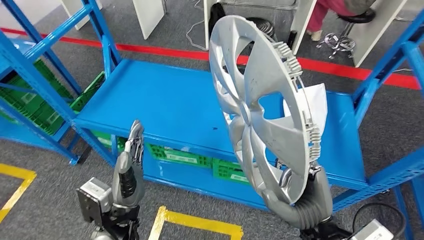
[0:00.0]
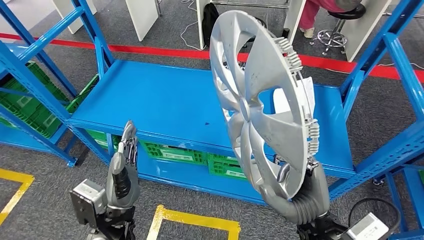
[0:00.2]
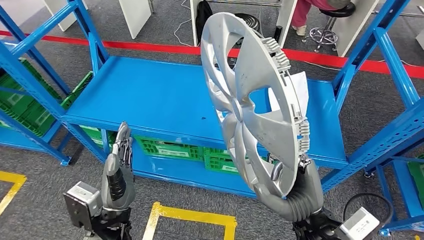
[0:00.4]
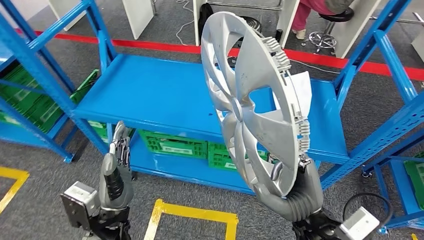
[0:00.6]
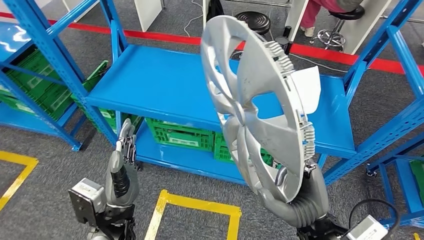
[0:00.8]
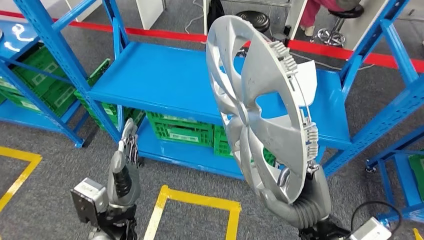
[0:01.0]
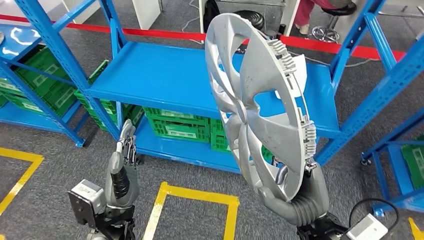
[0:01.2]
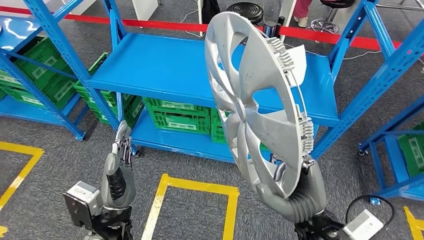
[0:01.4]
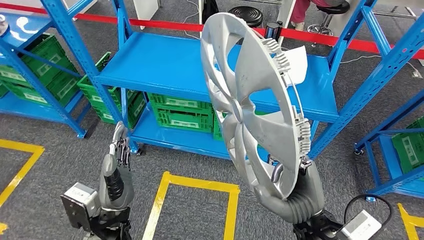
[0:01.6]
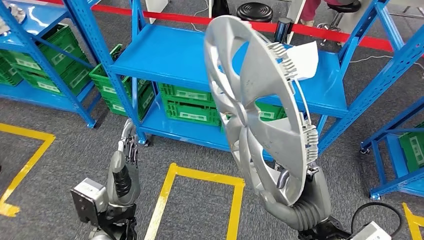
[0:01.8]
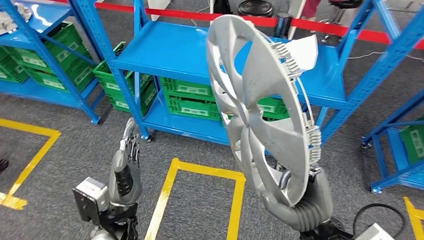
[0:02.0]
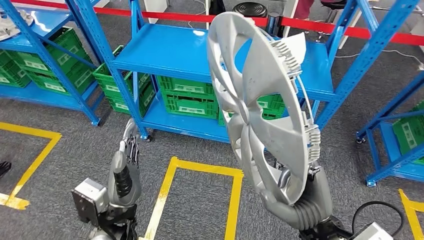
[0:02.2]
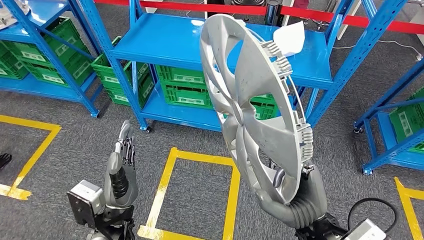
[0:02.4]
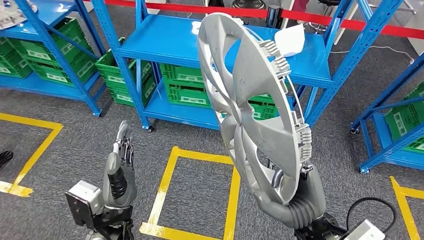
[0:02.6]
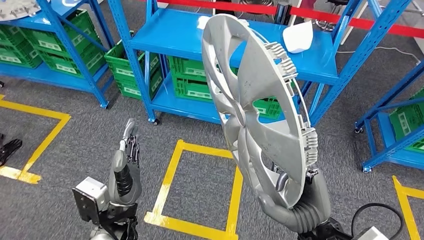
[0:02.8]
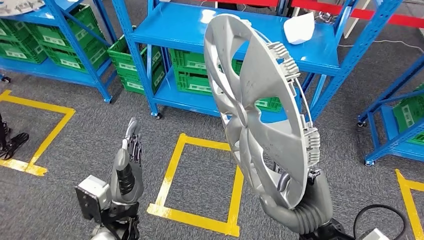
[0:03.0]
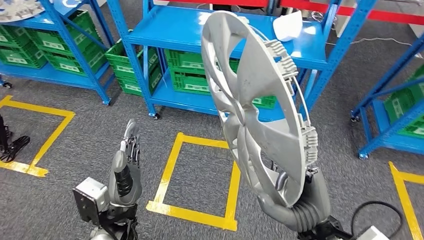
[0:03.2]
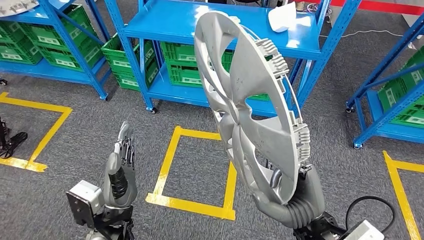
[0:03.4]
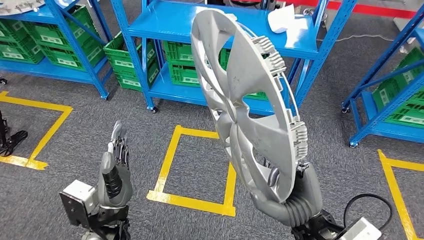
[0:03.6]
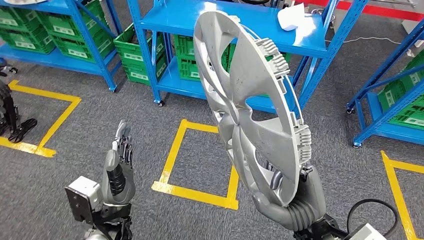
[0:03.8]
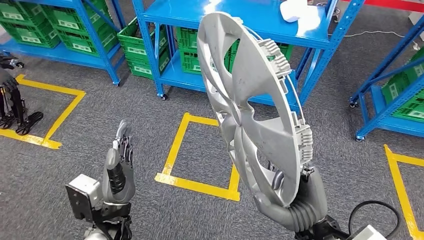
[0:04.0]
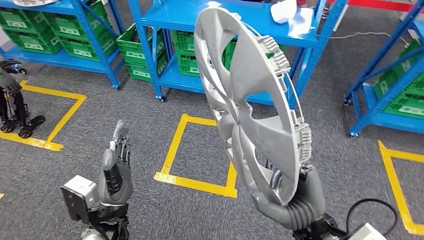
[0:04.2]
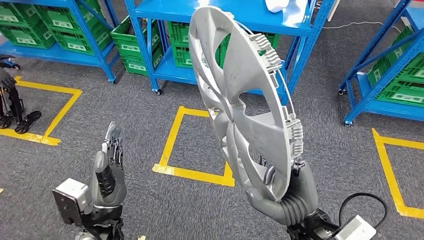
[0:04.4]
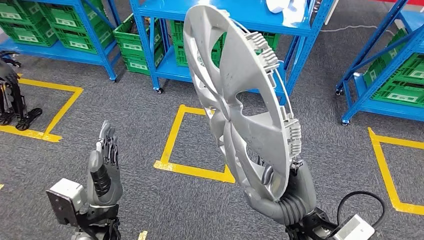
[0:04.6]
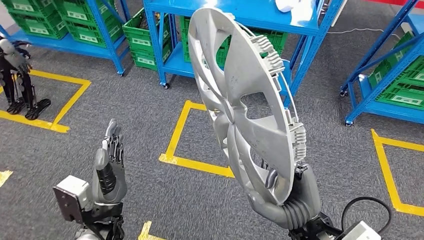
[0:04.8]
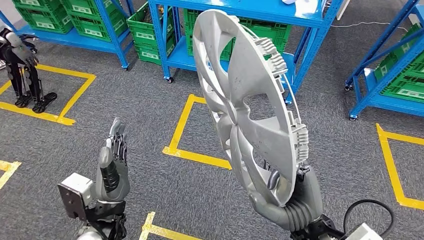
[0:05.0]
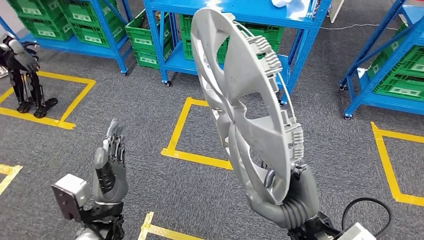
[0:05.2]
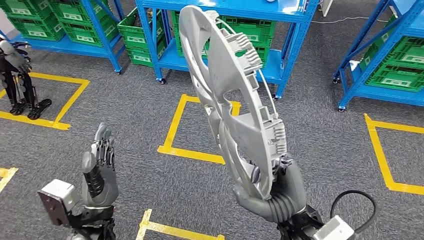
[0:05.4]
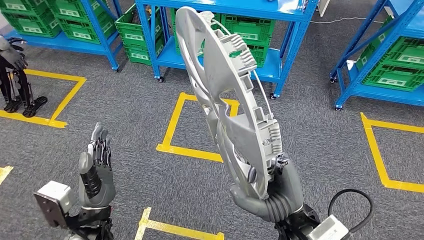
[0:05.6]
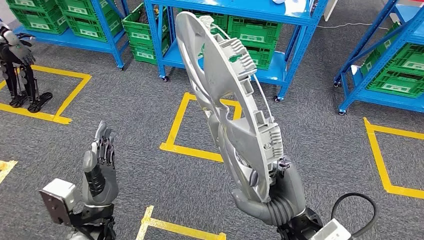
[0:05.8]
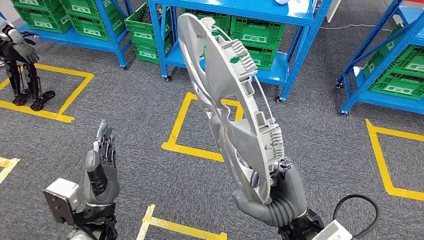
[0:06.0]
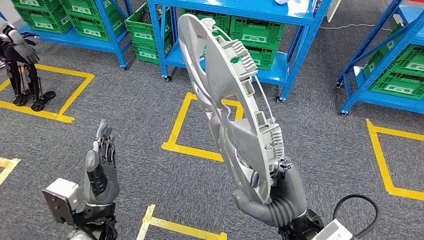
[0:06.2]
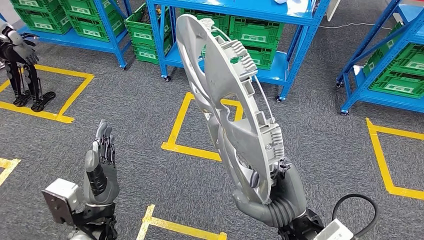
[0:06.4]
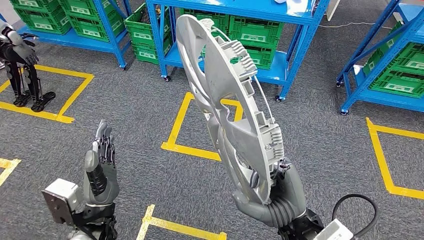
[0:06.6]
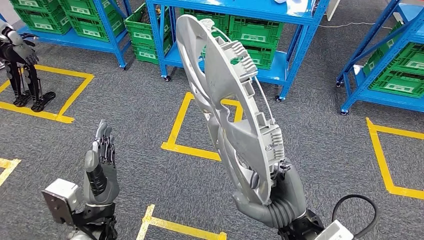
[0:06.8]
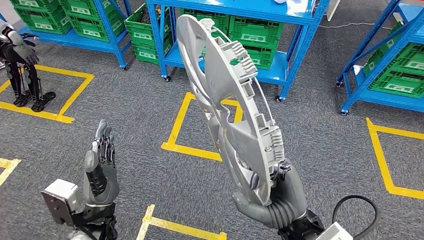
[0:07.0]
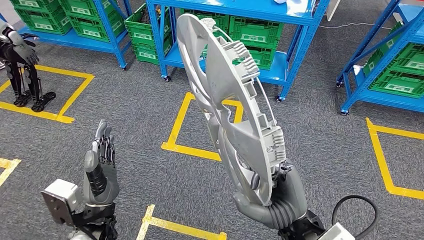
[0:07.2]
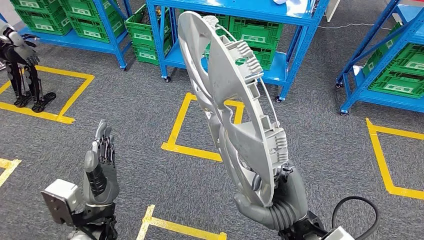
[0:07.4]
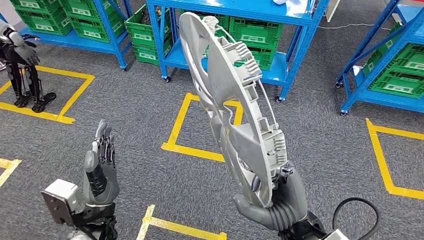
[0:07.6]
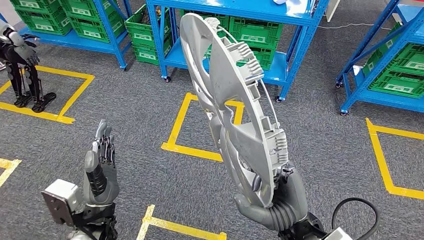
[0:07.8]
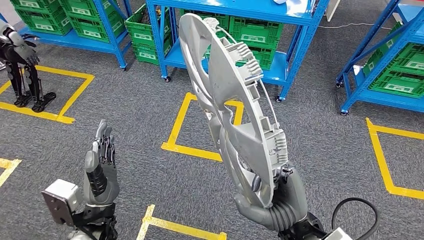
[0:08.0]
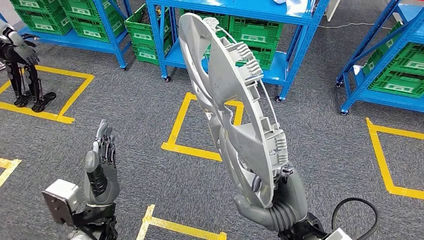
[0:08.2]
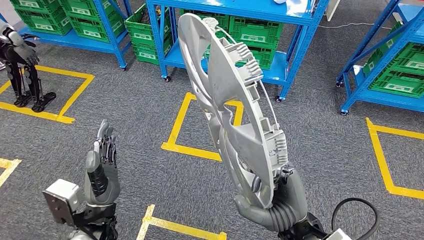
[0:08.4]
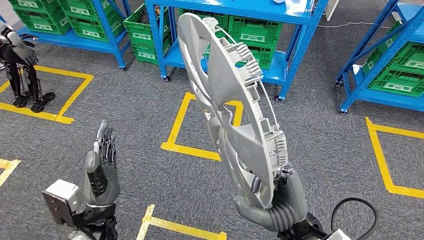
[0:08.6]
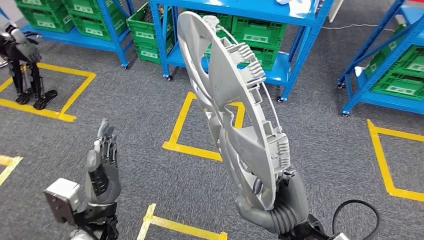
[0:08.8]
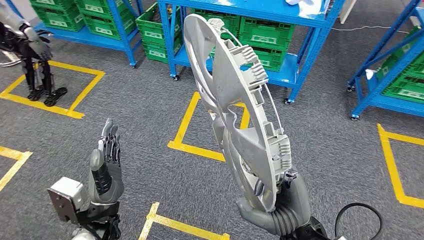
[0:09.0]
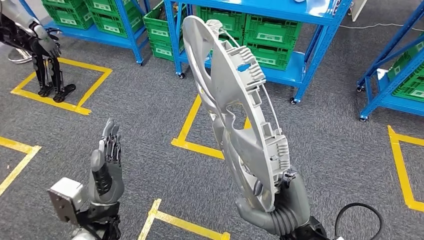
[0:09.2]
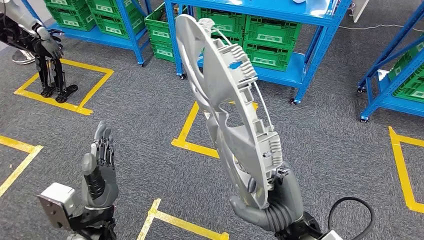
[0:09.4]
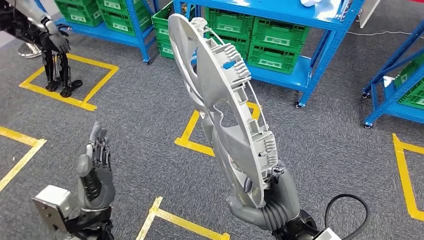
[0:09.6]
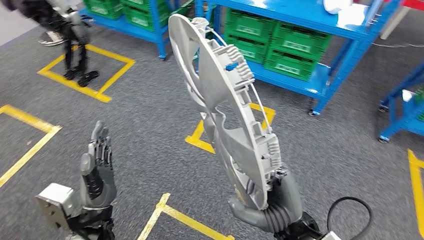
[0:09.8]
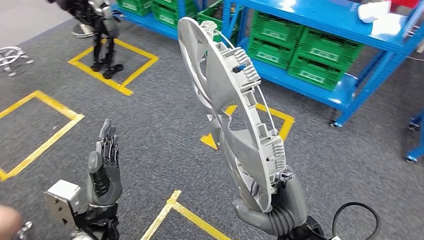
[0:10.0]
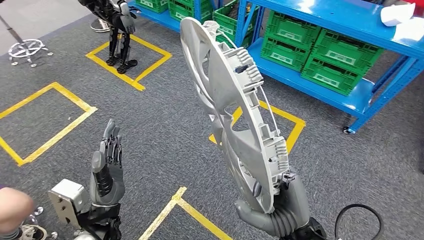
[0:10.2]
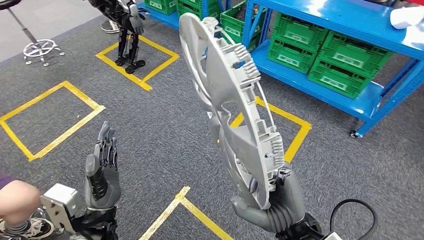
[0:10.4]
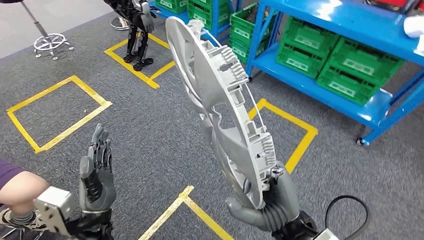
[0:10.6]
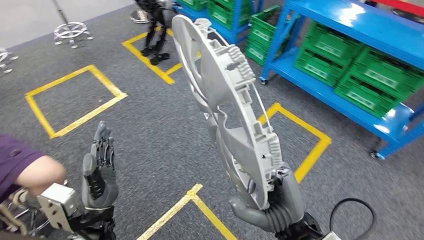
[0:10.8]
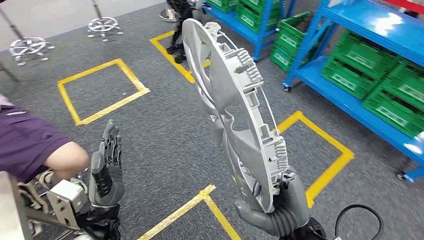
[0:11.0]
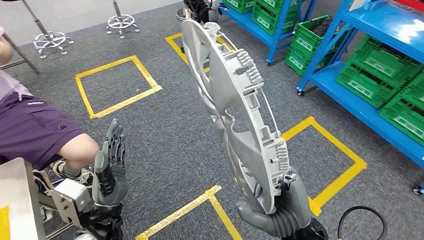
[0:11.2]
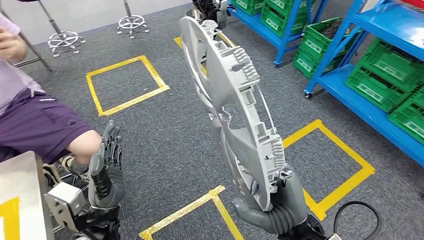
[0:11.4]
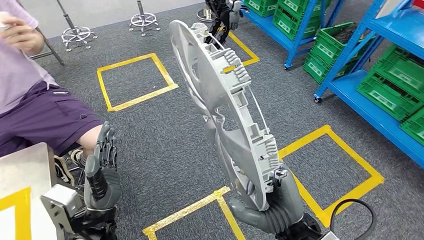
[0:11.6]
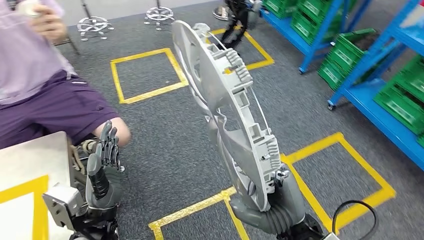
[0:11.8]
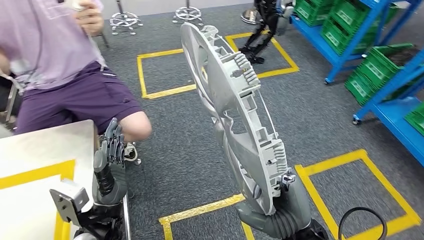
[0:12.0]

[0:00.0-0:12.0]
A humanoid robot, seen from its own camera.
0:06.0 to 0:07.6: Both hands stay about where they are.

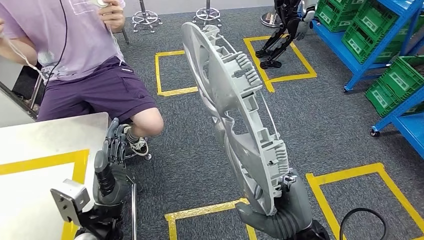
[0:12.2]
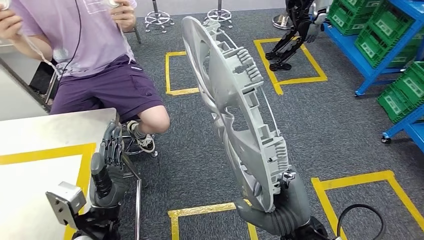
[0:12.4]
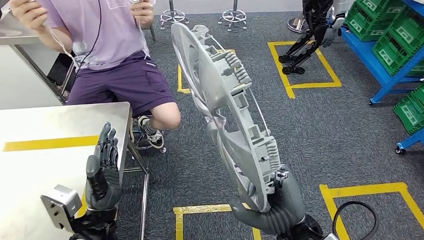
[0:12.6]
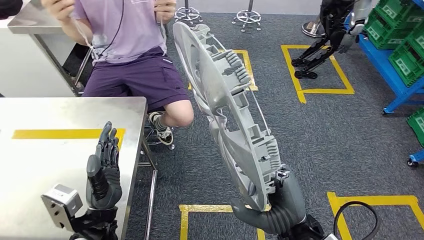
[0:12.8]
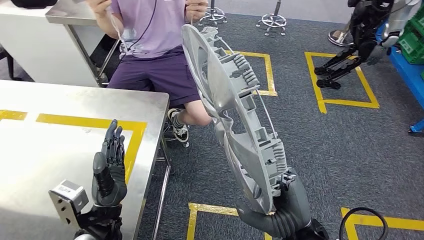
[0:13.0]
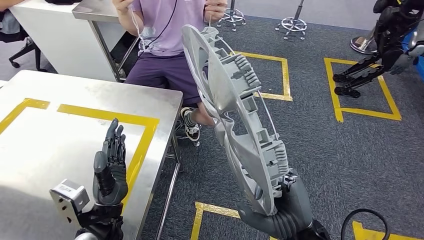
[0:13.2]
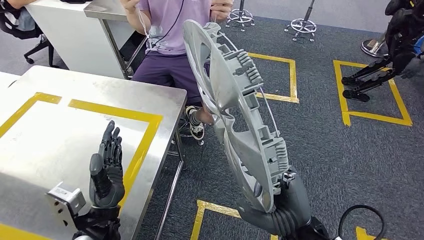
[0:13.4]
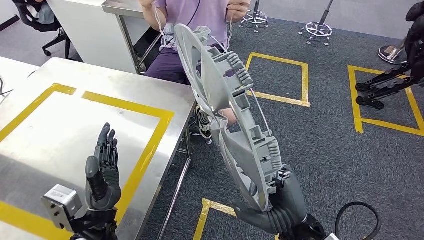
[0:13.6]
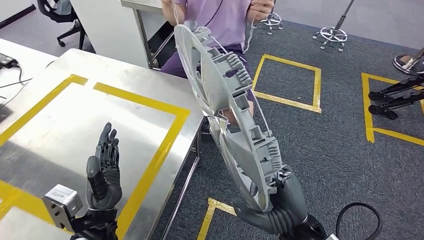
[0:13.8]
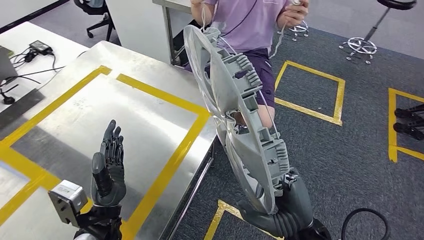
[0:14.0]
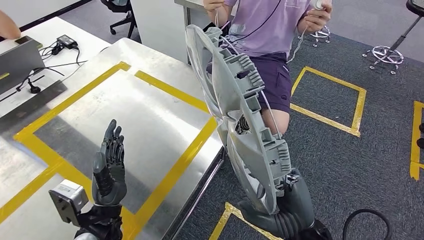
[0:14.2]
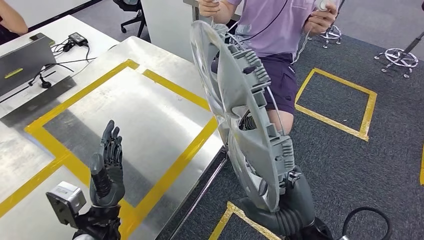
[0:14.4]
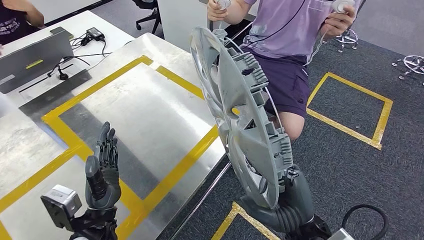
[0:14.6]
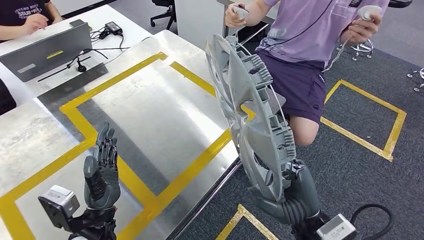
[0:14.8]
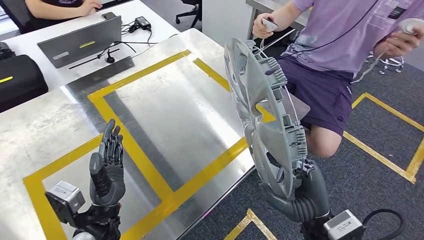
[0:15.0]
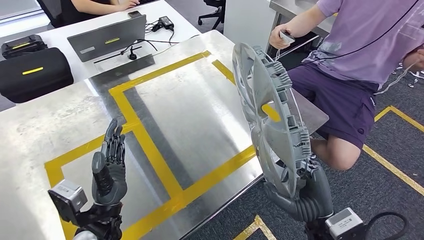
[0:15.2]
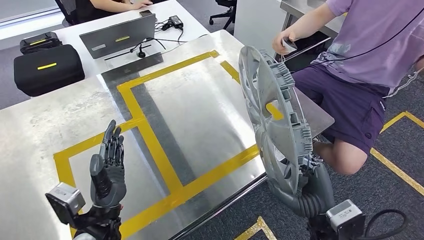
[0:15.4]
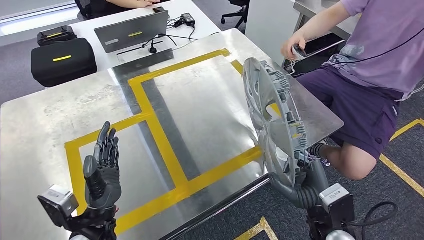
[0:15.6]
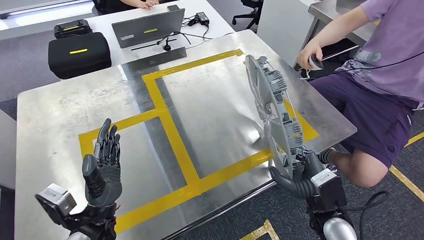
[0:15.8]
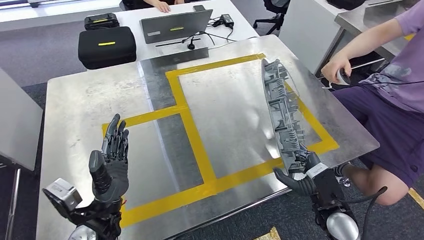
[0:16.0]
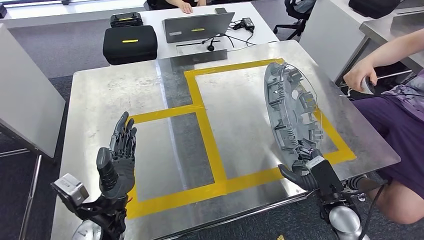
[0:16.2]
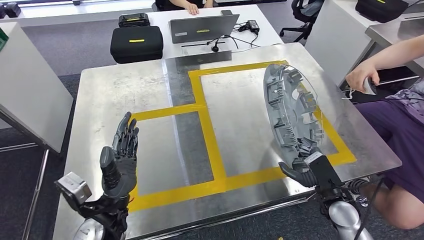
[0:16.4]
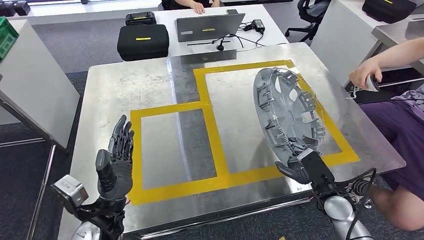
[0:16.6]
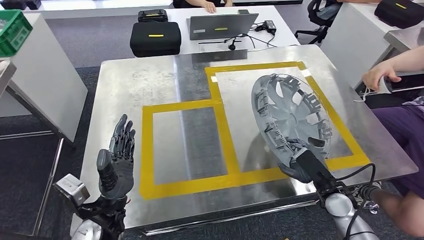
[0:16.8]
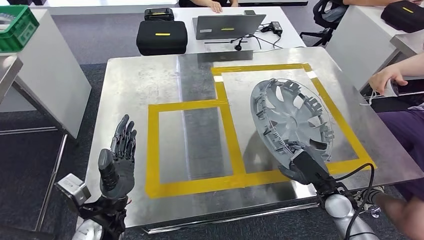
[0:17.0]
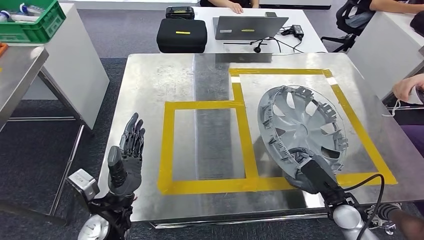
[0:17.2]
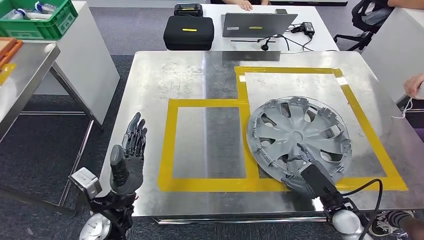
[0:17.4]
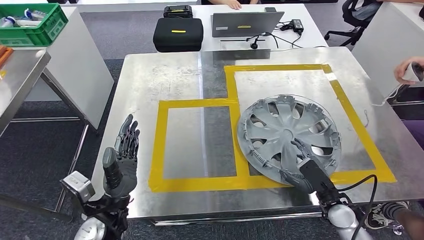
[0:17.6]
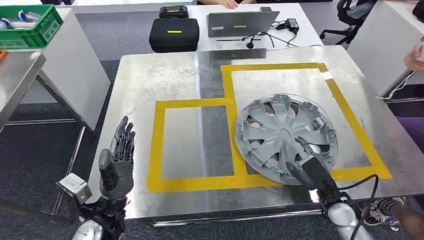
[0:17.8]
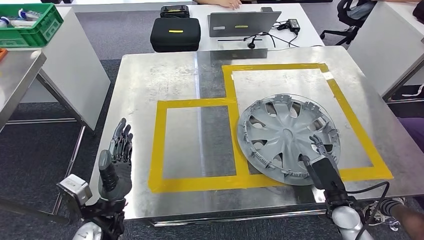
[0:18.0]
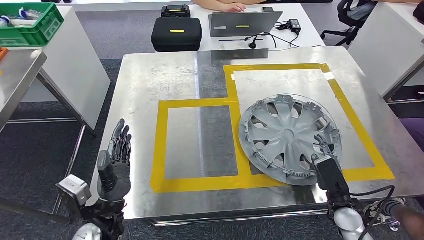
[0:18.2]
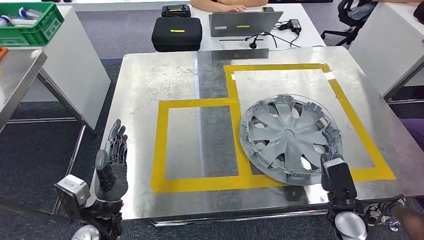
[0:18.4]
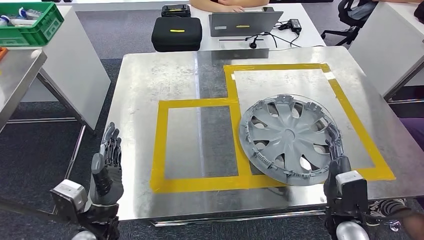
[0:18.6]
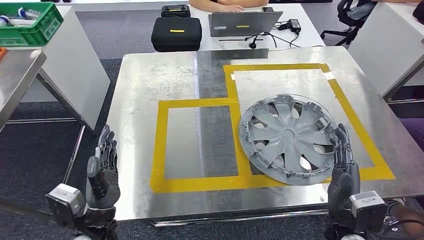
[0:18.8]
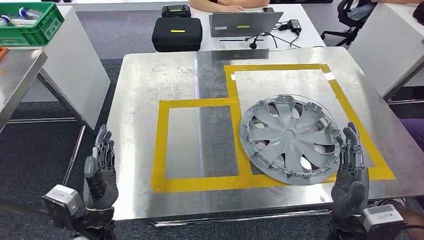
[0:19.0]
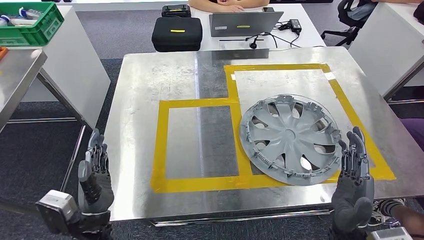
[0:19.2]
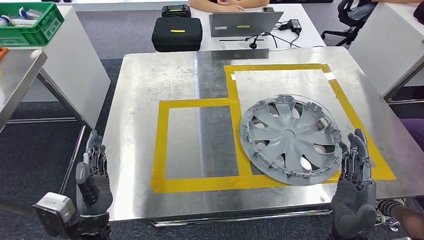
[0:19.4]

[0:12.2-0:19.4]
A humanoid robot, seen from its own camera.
0:18.0 to 0:19.4: The right hand moves upward, backward and to the left, roughly 20 cm.
